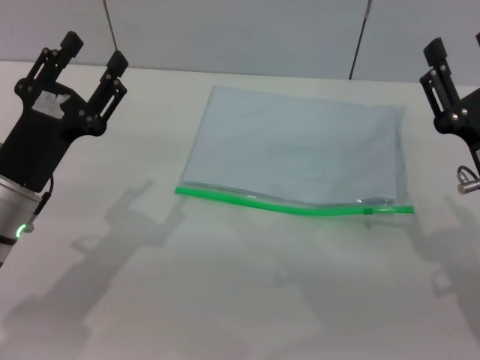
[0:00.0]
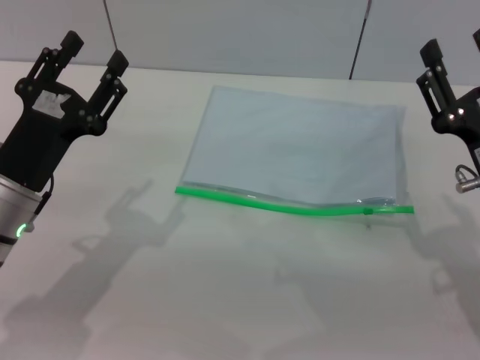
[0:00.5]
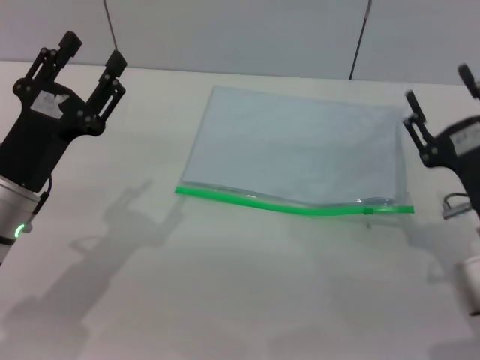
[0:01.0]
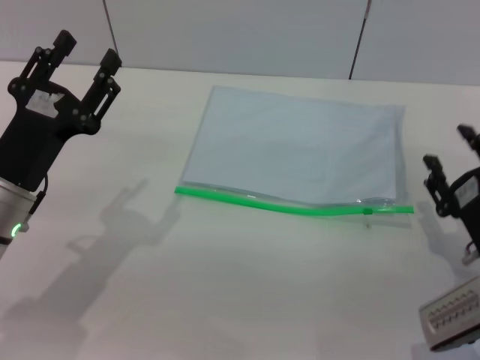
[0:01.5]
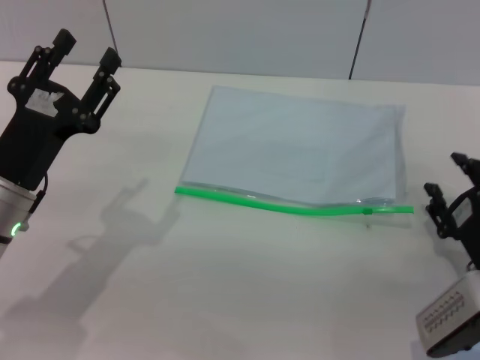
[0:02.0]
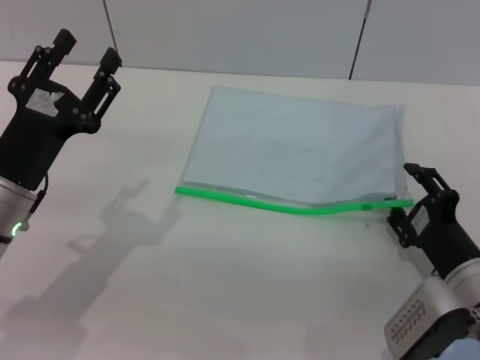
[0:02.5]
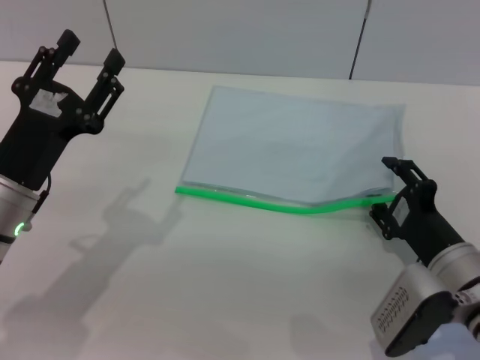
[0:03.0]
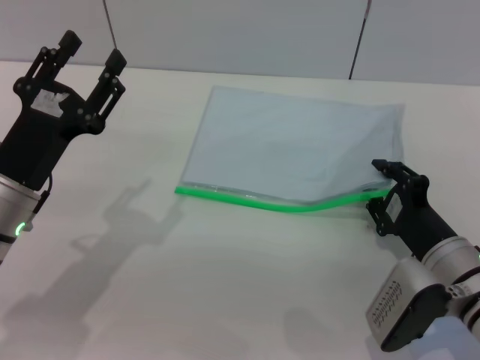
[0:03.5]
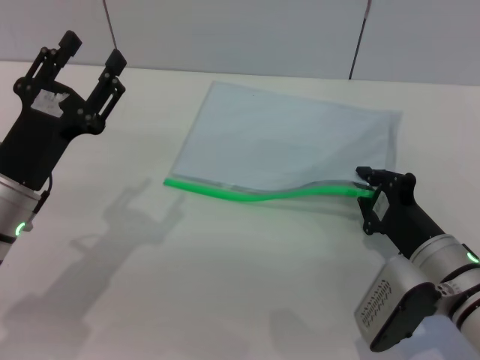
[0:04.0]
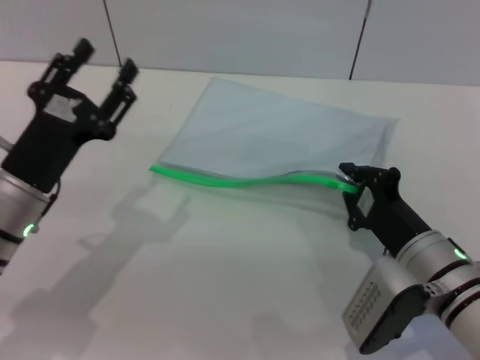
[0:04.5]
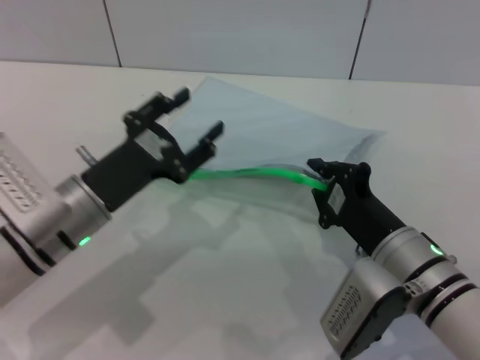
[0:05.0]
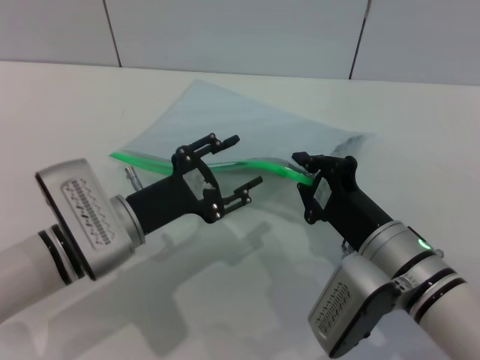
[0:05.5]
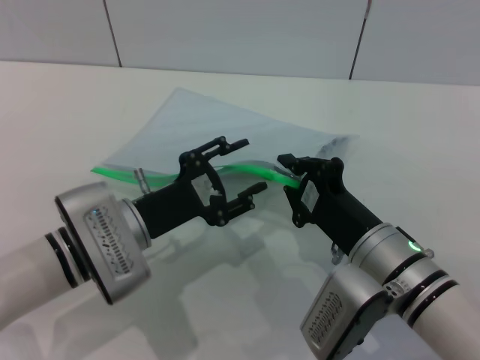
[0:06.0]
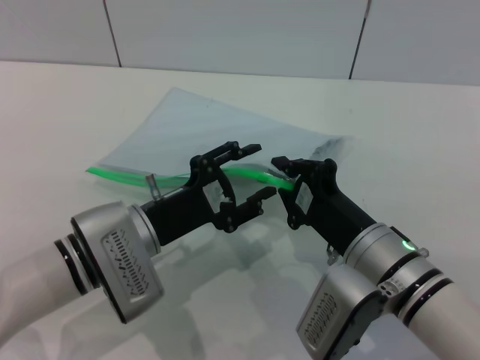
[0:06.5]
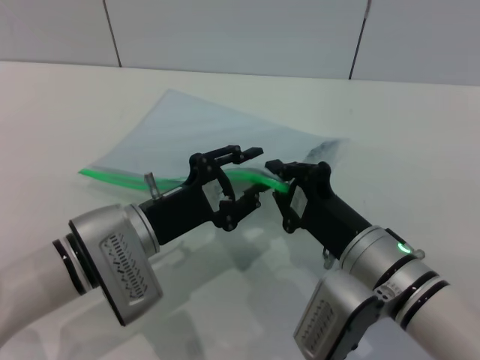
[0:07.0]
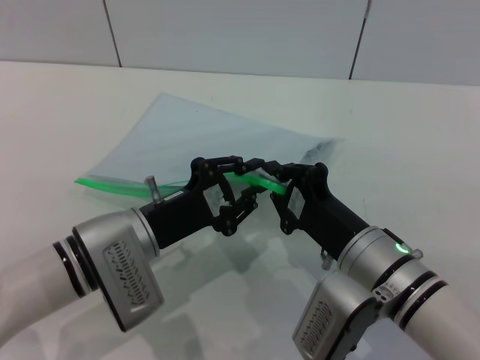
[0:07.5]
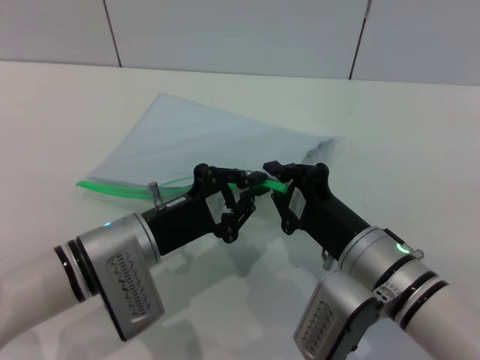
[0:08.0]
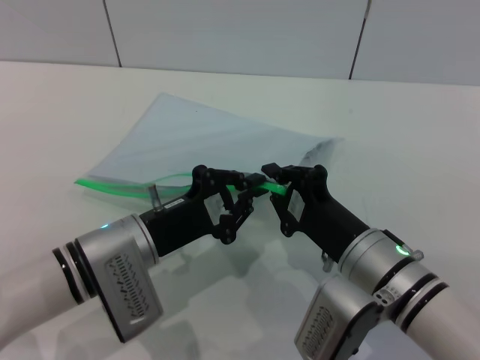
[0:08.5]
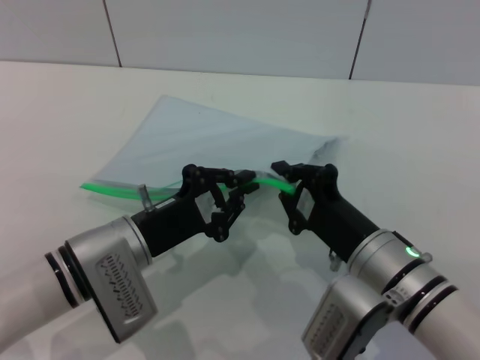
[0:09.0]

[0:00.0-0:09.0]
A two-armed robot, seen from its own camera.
Step, 0:00.0 to 0:05.0: Pick up the transparent plastic bag with the right gripper.
0:00.0 to 0:02.0: The right gripper travels downward by about 10 cm.
0:02.0 to 0:04.5: The right gripper shifts approximately 10 cm to the left, and closes.
0:04.5 to 0:07.0: The left gripper shifts roughly 10 cm to the right, while the right gripper travels to the left by approximately 5 cm.
0:07.0 to 0:09.0: The left gripper closes its fingers.

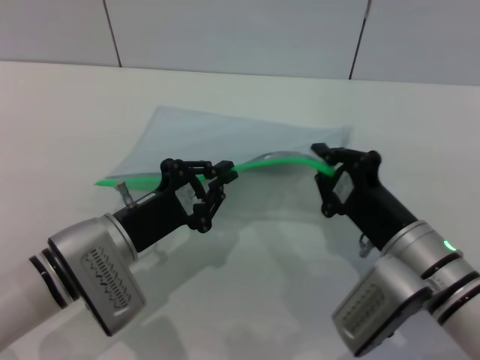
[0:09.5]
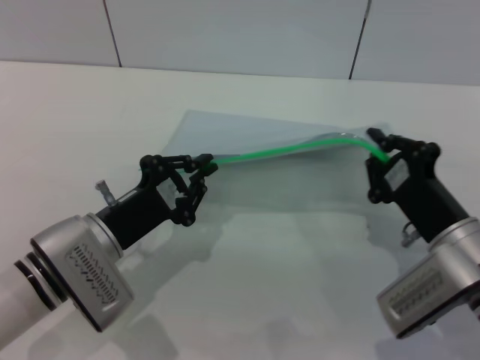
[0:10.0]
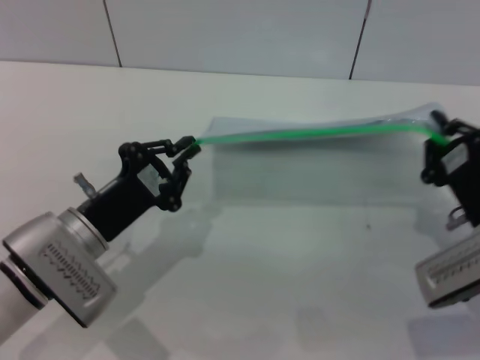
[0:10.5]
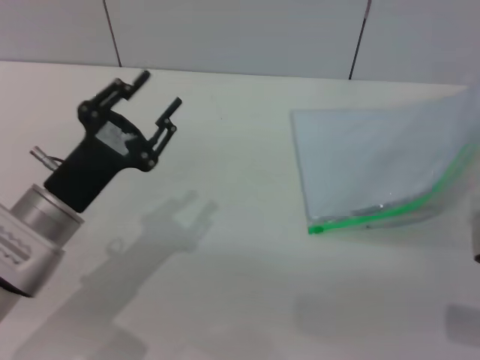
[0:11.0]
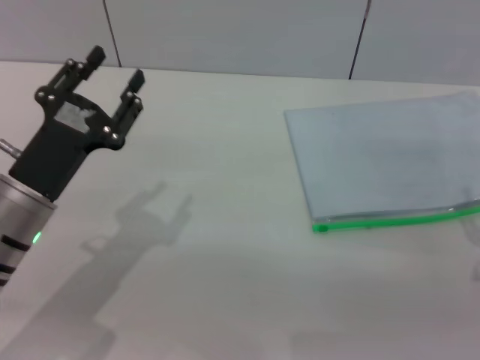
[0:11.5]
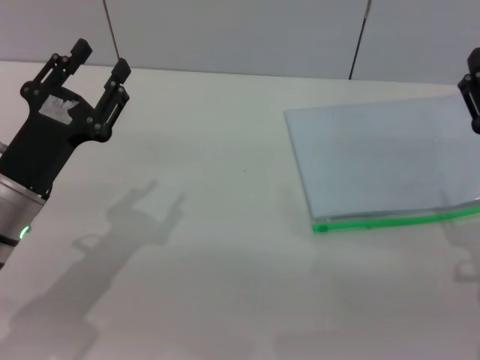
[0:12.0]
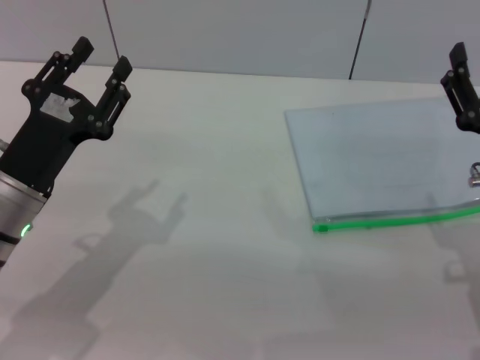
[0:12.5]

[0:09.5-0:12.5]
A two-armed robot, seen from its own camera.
0:09.5 to 0:11.0: The right gripper shifts some 10 cm to the right. Meanwhile the left gripper opens.
0:11.0 to 0:12.5: The right gripper opens up.

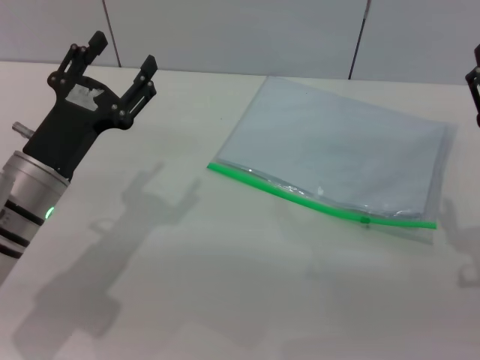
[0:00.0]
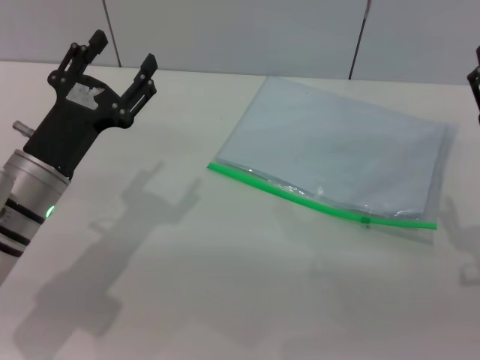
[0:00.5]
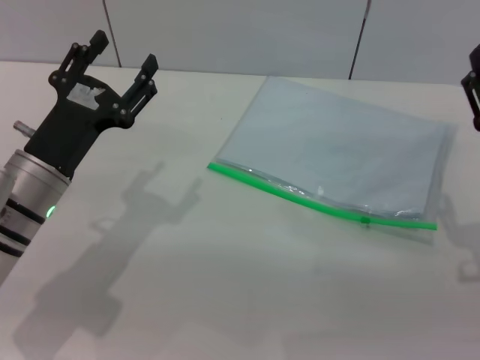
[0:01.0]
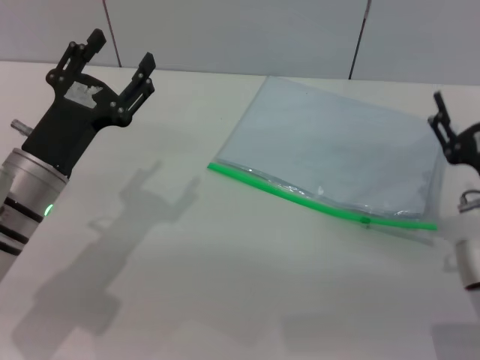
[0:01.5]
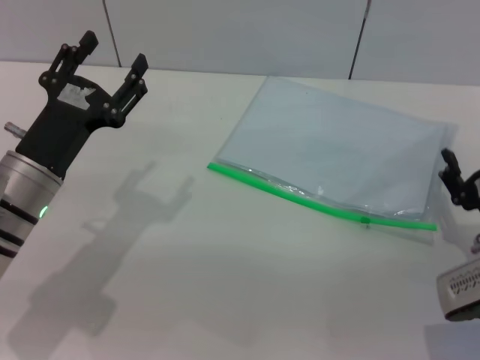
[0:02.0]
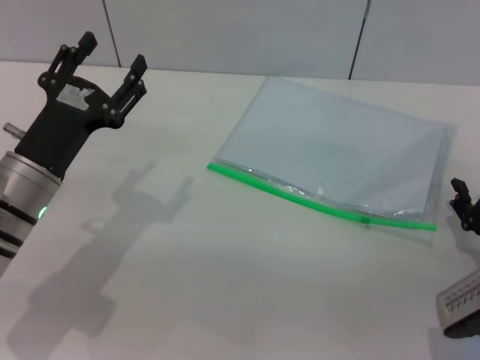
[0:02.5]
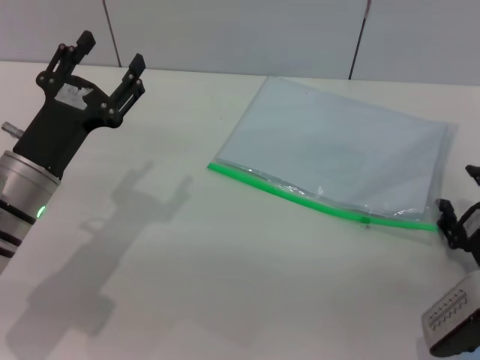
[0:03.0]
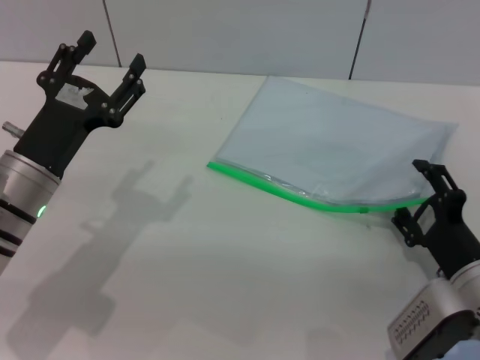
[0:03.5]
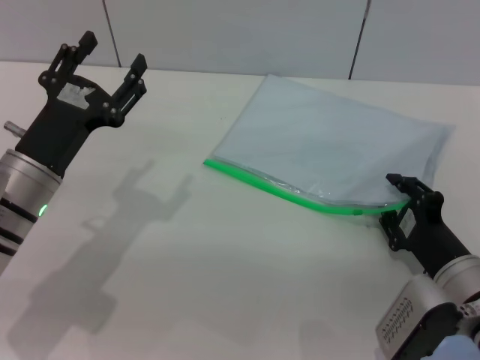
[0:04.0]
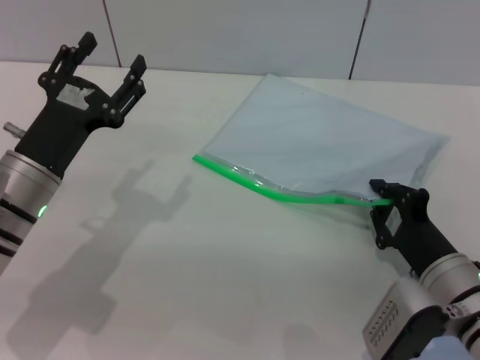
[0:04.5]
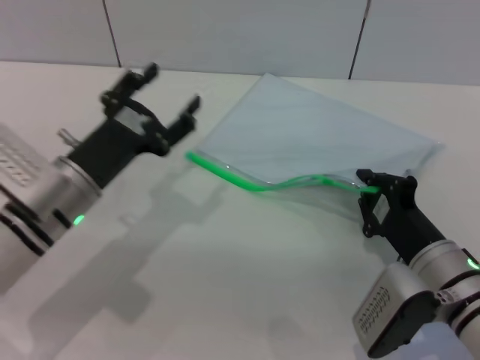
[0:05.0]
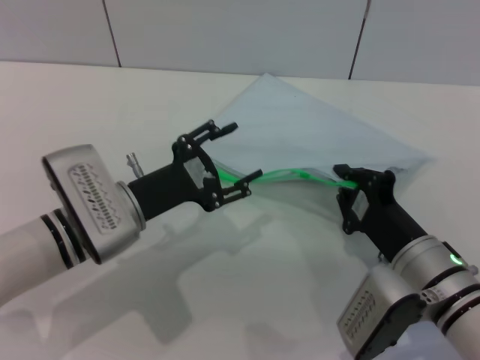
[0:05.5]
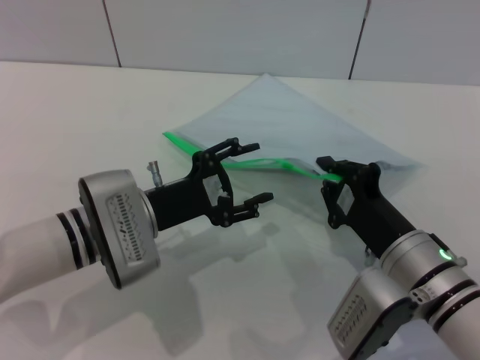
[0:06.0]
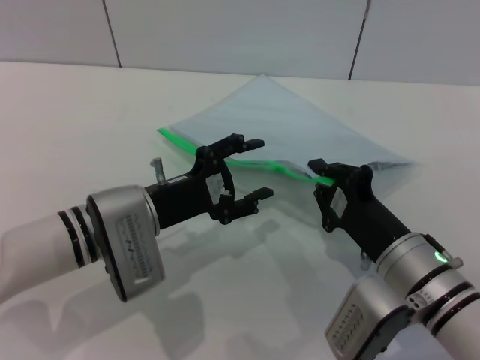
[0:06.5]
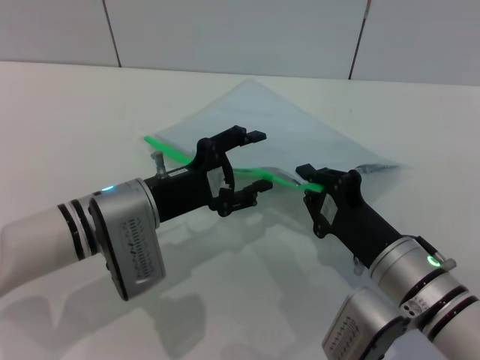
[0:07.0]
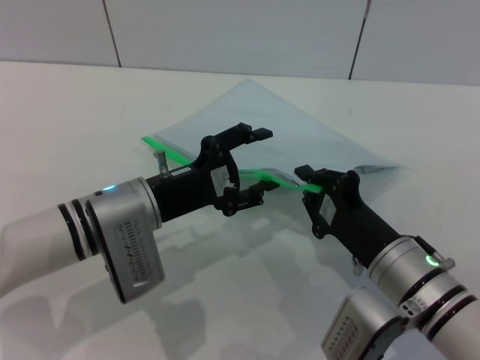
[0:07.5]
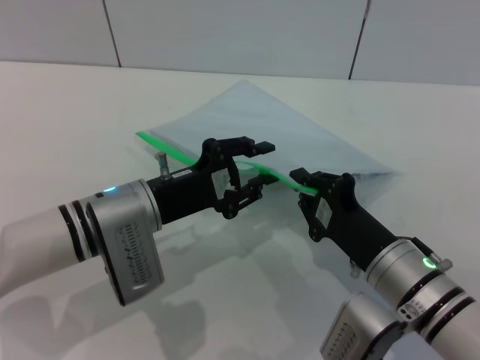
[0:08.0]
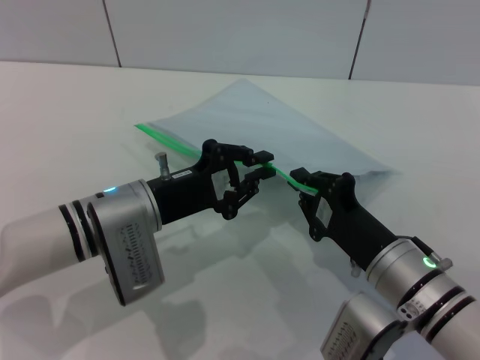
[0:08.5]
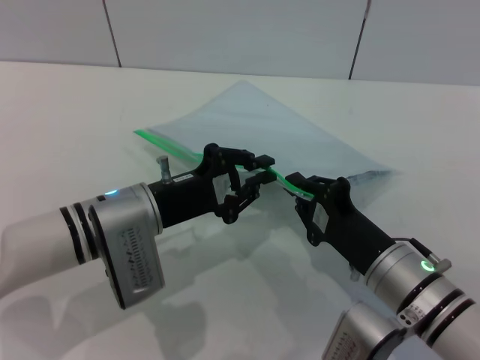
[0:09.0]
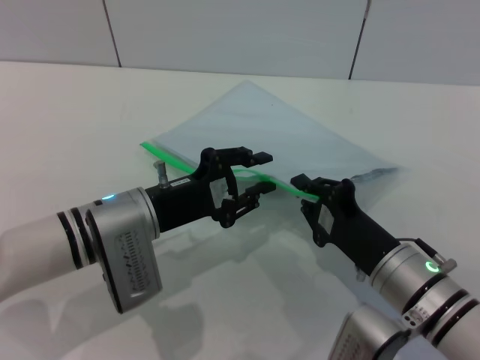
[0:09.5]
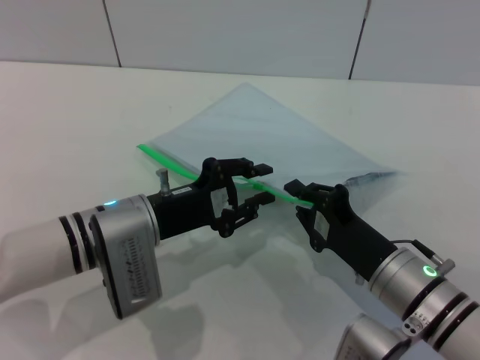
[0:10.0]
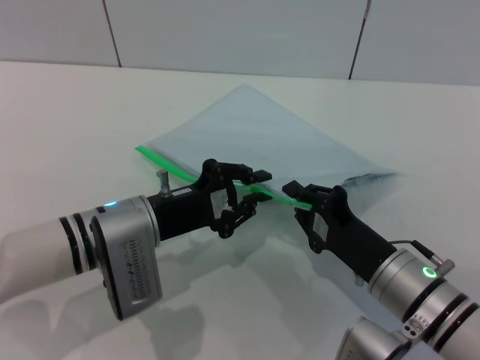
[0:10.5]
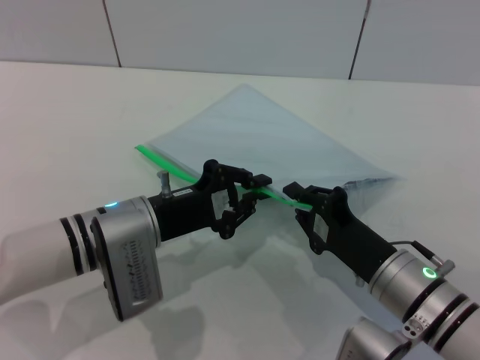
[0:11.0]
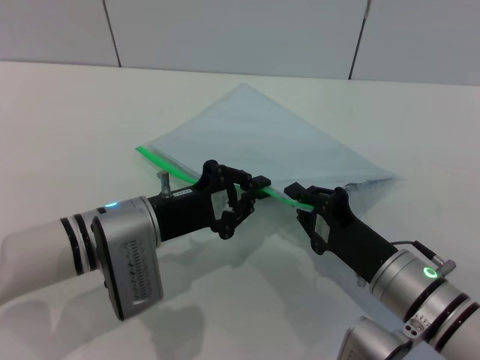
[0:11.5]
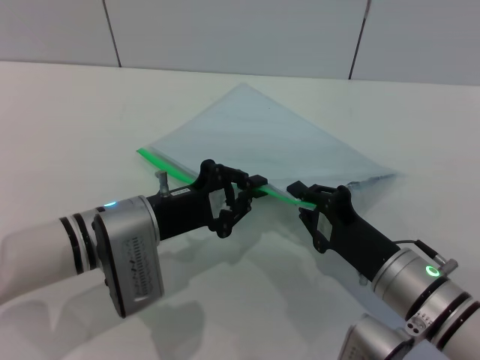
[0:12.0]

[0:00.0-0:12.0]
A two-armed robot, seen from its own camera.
Step, 0:00.0 to 0:05.5: Pick up the transparent plastic bag with the right gripper.
0:00.0 to 0:02.0: The right gripper moves downward, roughly 5 cm.
0:04.0 to 0:06.0: The right gripper shifts about 5 cm to the left, and closes up. The left gripper heads to the right, covering roughly 5 cm.
0:06.0 to 0:10.0: The grippers make only small movements.
0:10.0 to 0:12.0: The left gripper closes.

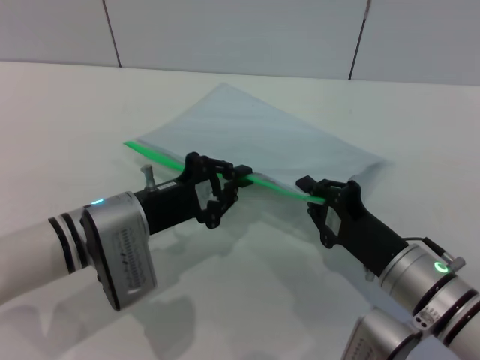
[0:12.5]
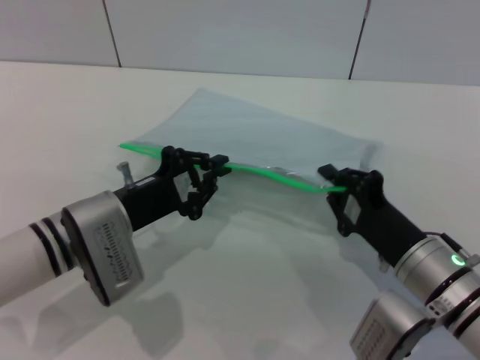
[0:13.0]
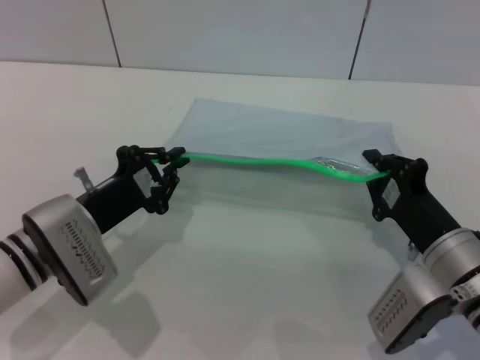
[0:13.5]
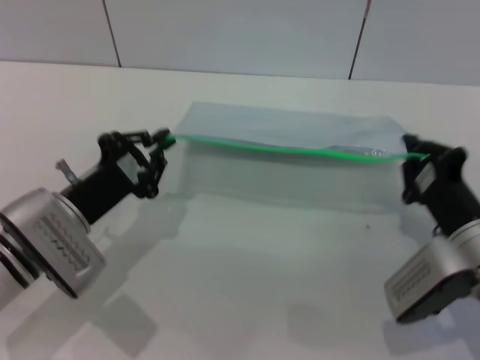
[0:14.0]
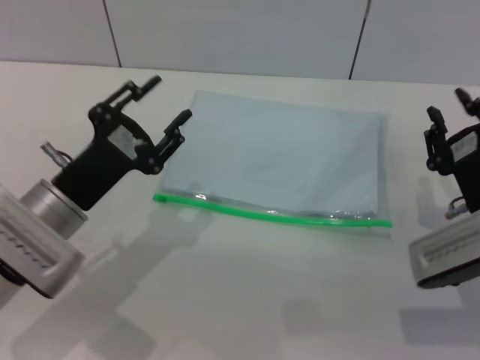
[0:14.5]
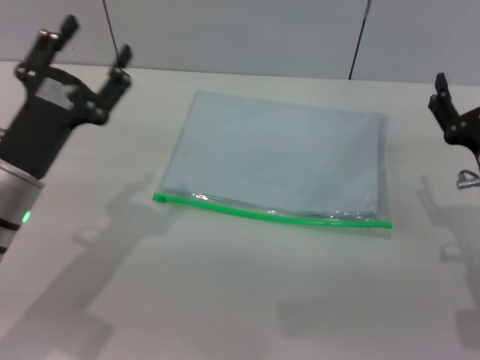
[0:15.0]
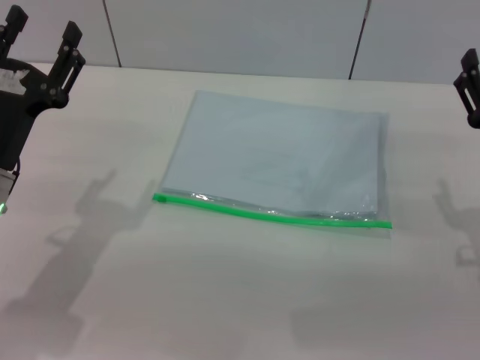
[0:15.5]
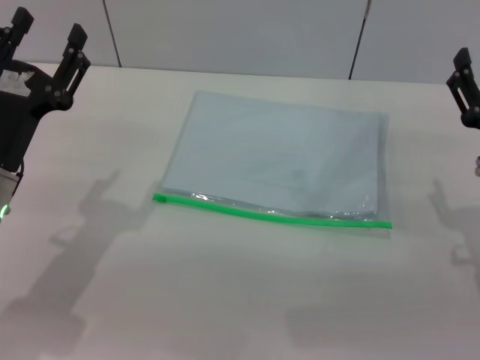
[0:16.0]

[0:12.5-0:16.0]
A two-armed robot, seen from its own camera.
Step, 0:14.0 to 0:14.5: Place the transparent plastic bag.
0:12.5 to 0:14.5: The left gripper shifts by roughly 5 cm, and opens its fingers. The right gripper goes roughly 5 cm to the right.
0:14.5 to 0:16.0: The left gripper opens, while the right gripper opens up.
